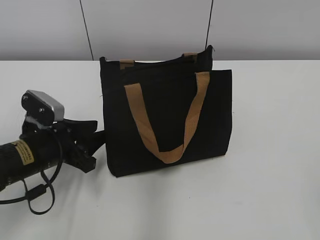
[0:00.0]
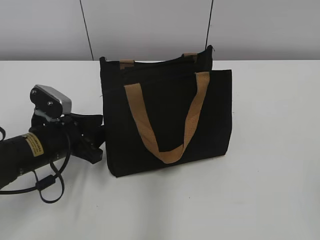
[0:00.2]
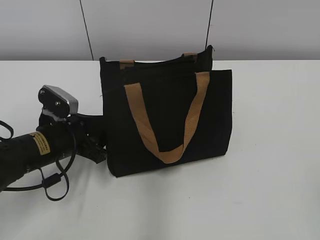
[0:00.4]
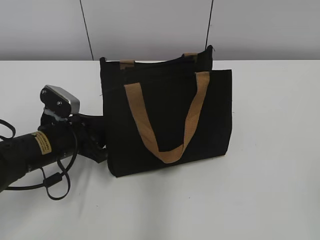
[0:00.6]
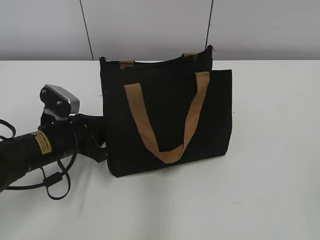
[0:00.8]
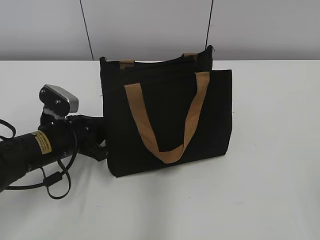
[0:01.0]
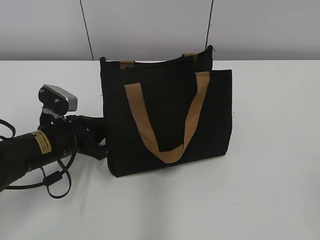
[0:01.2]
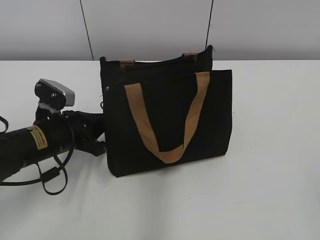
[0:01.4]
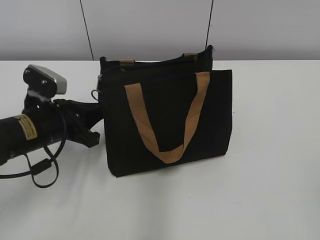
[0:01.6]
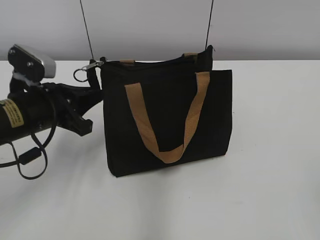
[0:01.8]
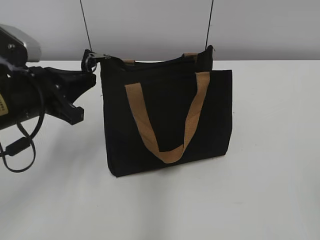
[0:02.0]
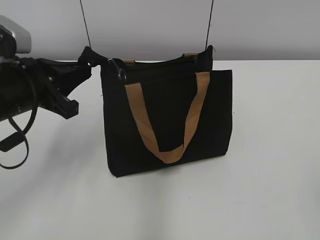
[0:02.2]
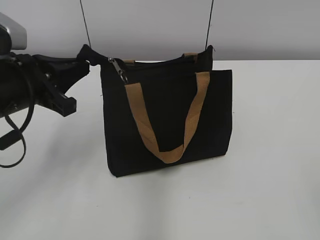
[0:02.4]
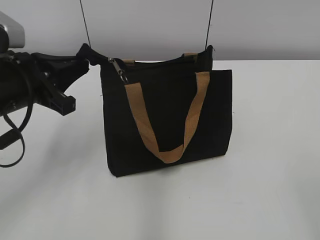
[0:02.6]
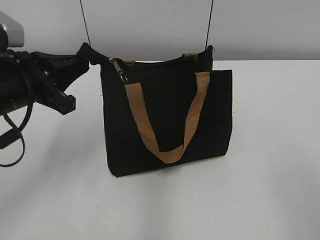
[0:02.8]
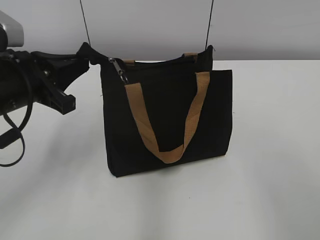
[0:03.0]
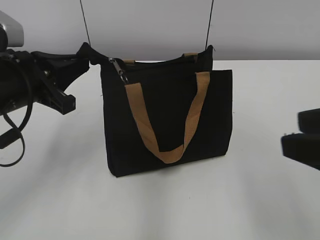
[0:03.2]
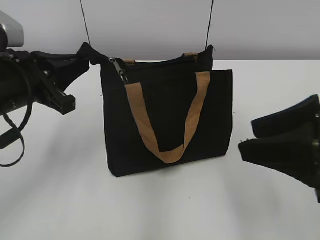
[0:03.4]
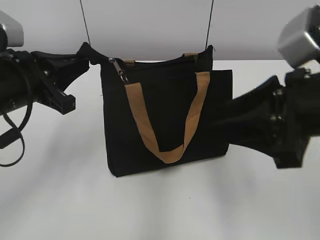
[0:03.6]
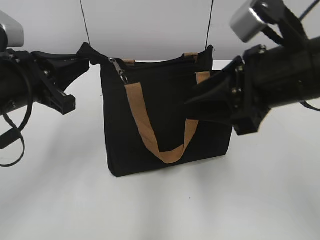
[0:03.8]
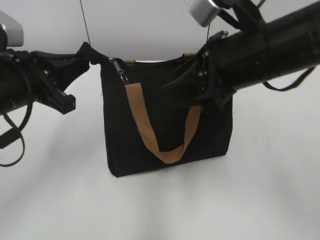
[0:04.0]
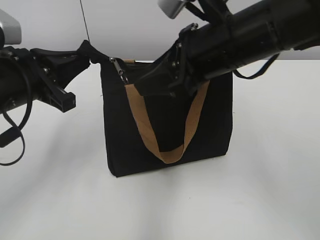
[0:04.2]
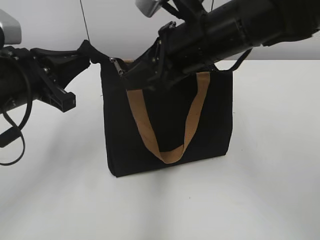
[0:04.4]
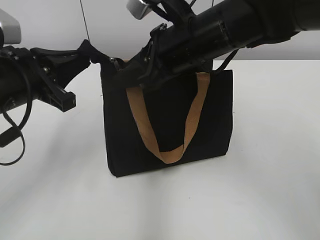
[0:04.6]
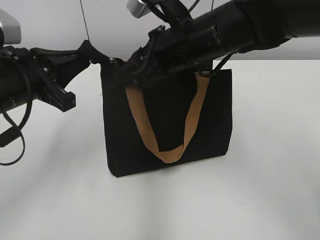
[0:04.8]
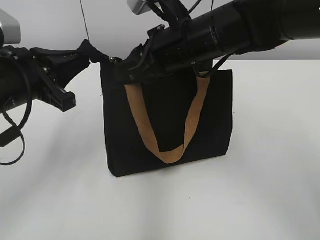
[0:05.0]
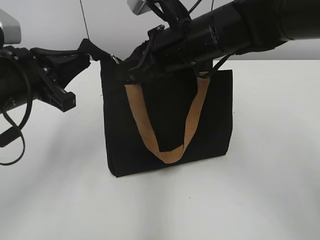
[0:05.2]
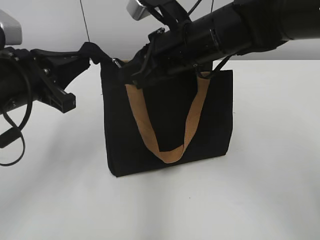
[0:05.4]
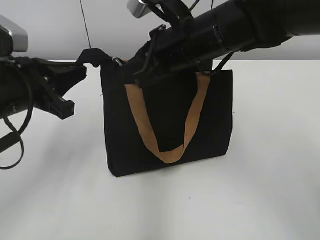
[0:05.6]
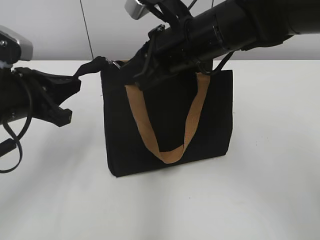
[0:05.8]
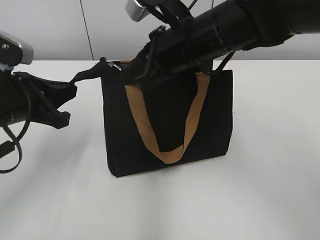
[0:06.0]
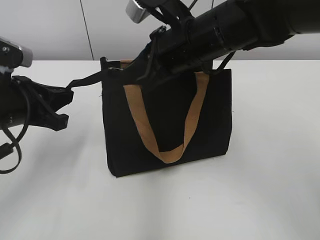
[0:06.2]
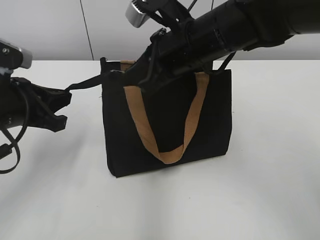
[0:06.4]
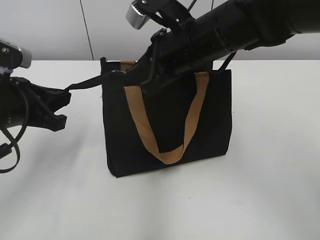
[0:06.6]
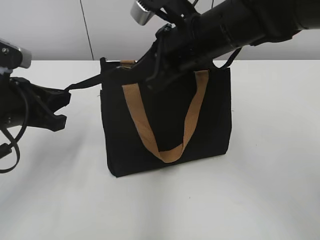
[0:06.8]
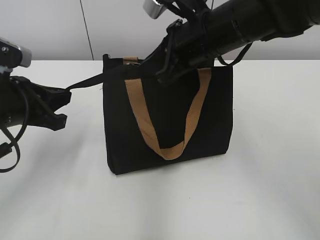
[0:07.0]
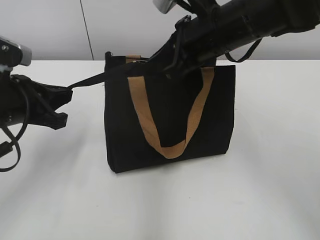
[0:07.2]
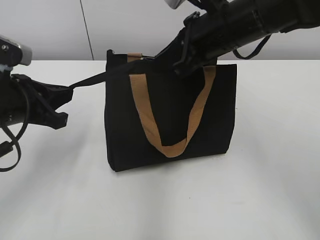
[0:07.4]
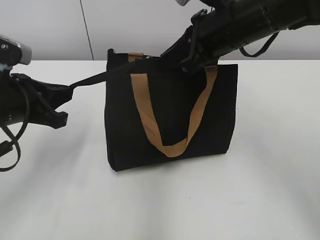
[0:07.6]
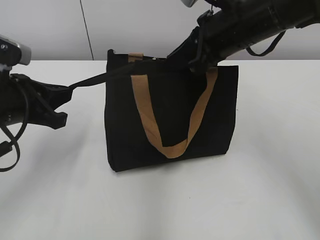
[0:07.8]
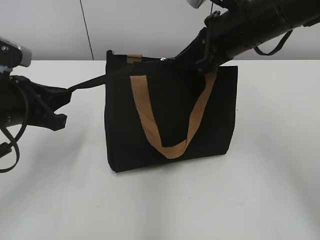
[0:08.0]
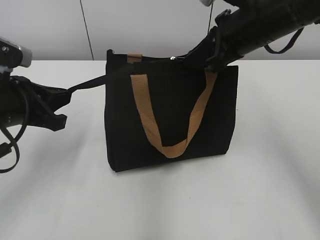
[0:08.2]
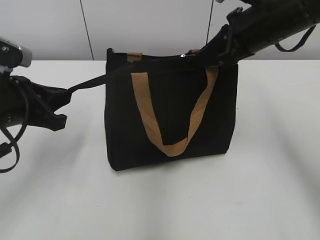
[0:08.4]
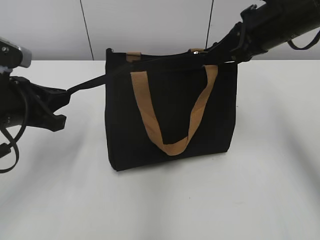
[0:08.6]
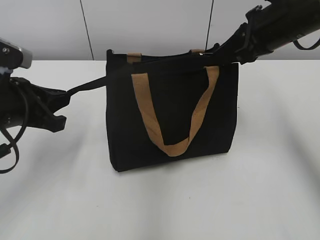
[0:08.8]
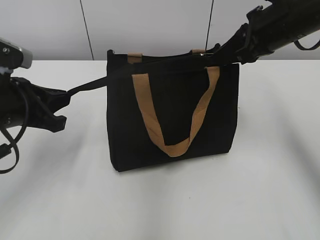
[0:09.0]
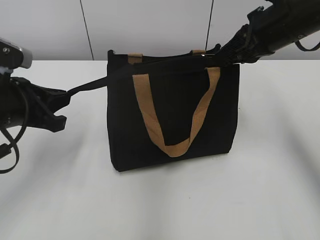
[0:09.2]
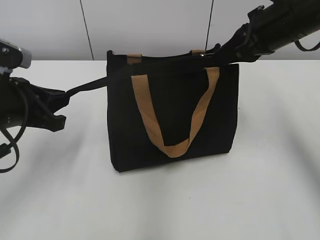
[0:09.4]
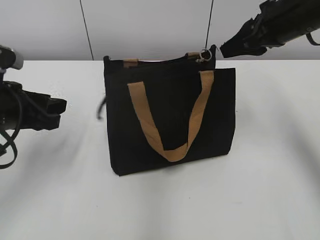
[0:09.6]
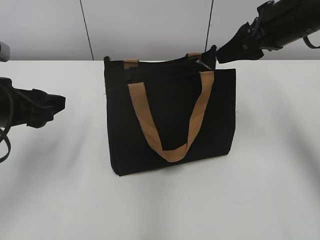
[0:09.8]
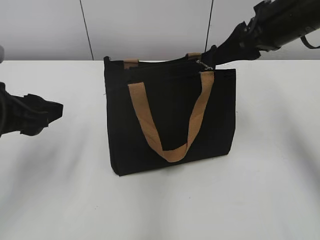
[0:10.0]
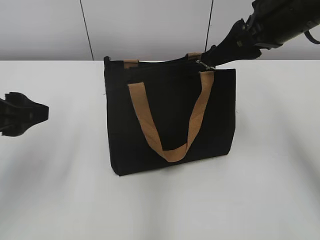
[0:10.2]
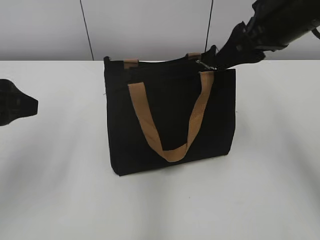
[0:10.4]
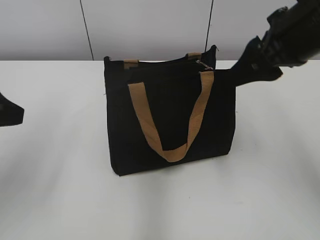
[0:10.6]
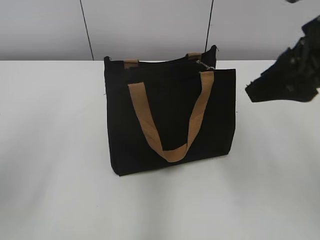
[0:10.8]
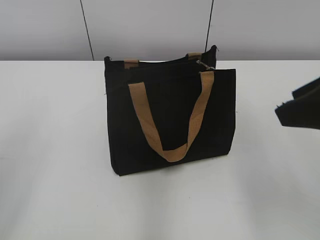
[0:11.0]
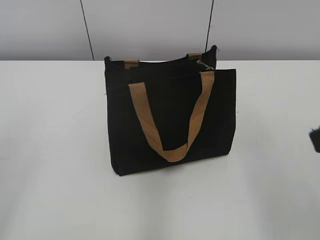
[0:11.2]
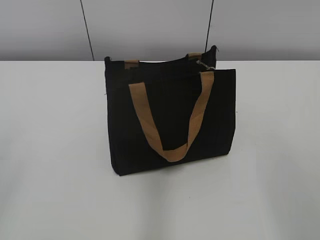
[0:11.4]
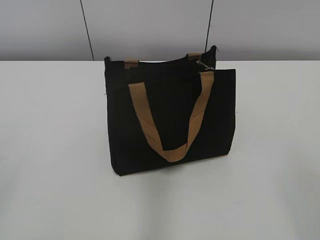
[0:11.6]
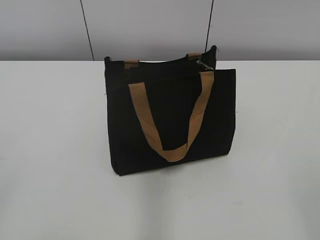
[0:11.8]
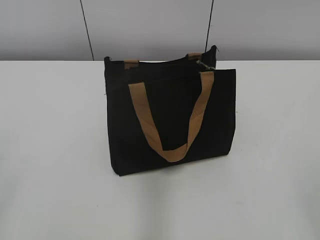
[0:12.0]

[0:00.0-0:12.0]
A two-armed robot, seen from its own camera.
Step, 0:00.0 to 0:09.4: Grab the zipper with your left hand.
0:00.0 to 0:01.6: The left gripper closes.
0:01.6 to 0:03.0: The right gripper moves forward, some 10 cm. The left gripper heads upward, covering roughly 10 cm.
0:03.0 to 0:04.4: The right gripper goes roughly 30 cm forward and to the left.
0:04.4 to 0:06.0: The right gripper closes its fingers.
0:06.0 to 0:07.6: The right gripper is displaced to the right by approximately 5 cm.
0:07.6 to 0:09.0: The right gripper shifts approximately 10 cm to the right.
0:09.0 to 0:10.4: The right gripper moves some 5 cm, and opens its fingers, while the left gripper heads upward, covering roughly 5 cm, and opens up.
0:10.4 to 0:12.0: The left gripper is displaced backward and to the left by approximately 20 cm. Meanwhile the right gripper travels backward by about 30 cm.
